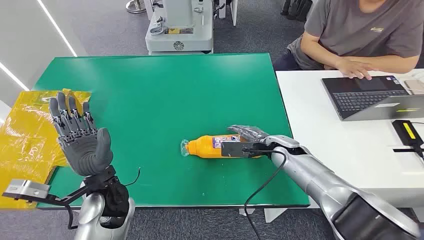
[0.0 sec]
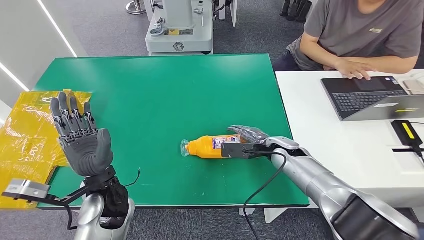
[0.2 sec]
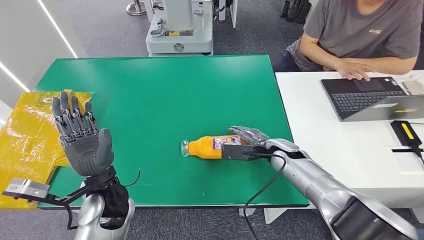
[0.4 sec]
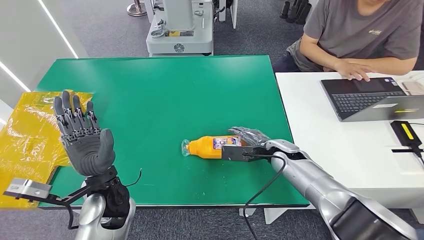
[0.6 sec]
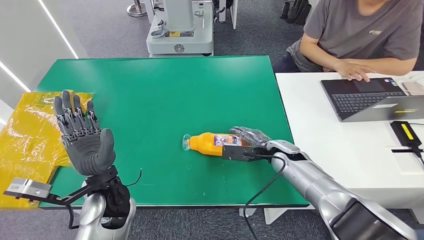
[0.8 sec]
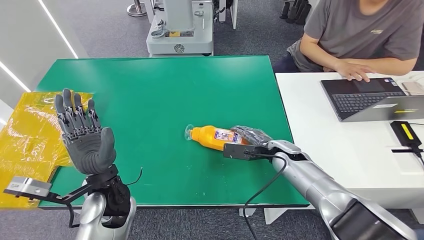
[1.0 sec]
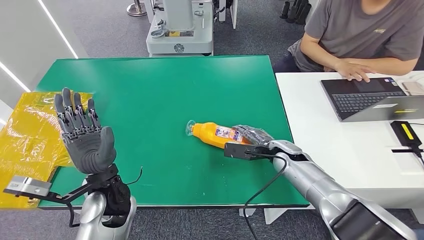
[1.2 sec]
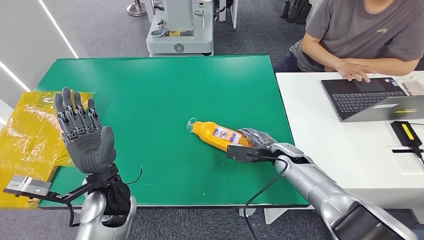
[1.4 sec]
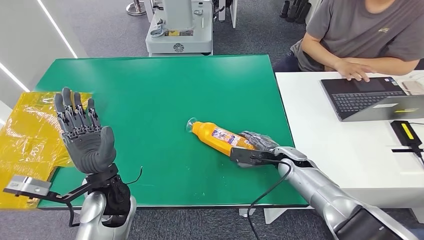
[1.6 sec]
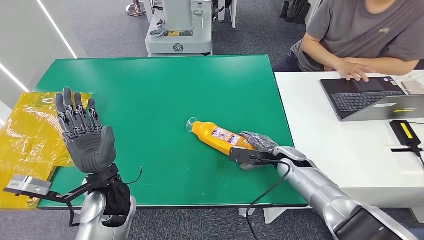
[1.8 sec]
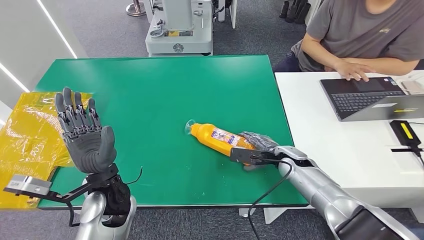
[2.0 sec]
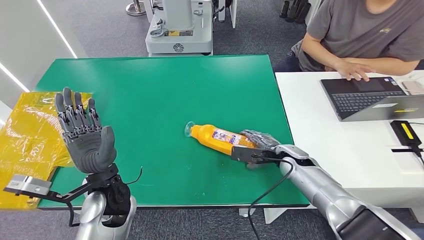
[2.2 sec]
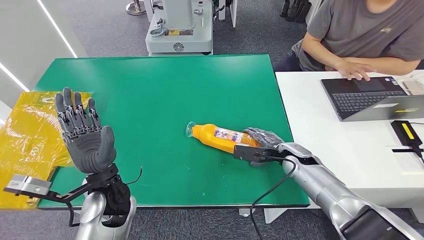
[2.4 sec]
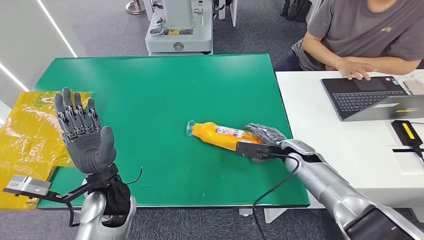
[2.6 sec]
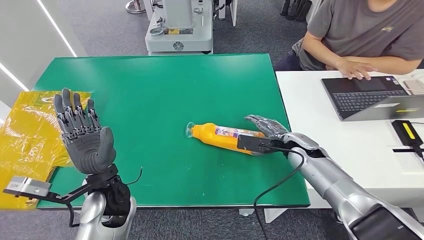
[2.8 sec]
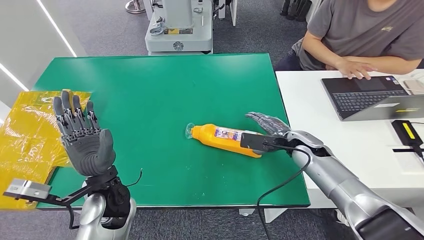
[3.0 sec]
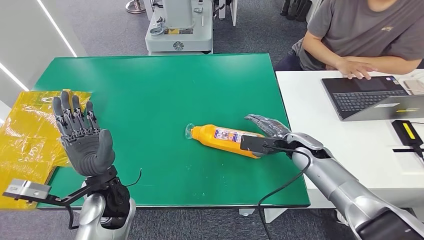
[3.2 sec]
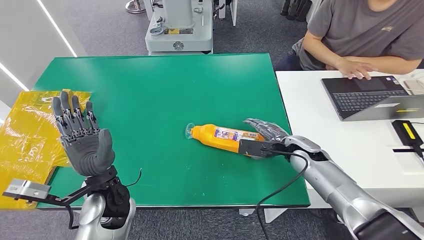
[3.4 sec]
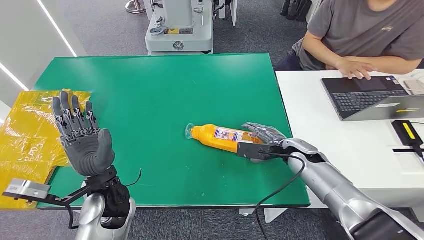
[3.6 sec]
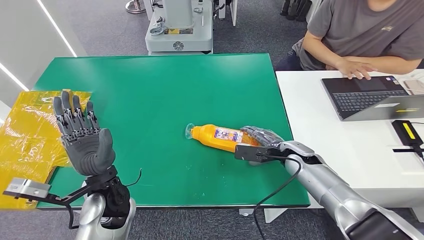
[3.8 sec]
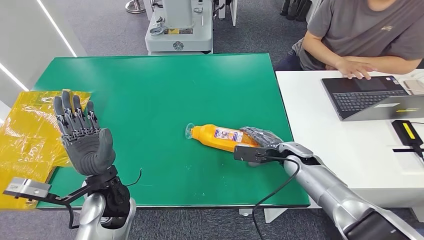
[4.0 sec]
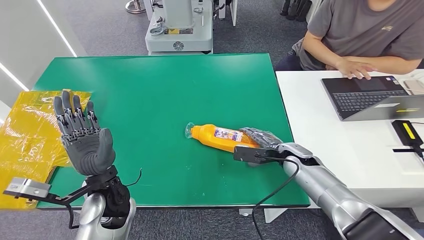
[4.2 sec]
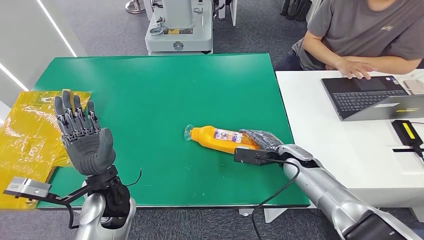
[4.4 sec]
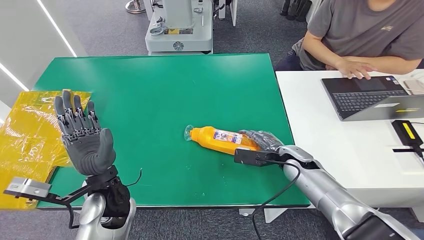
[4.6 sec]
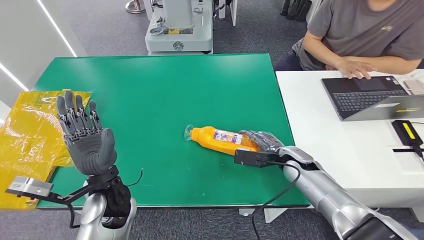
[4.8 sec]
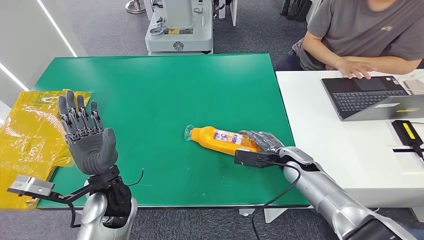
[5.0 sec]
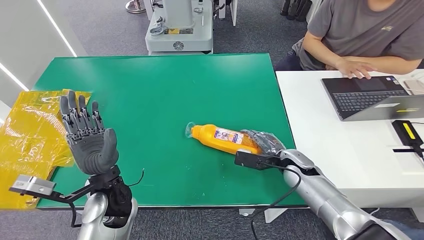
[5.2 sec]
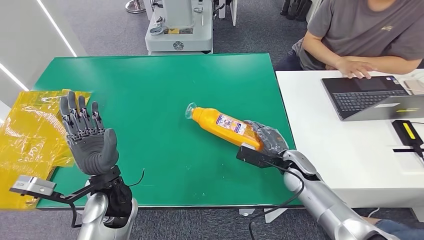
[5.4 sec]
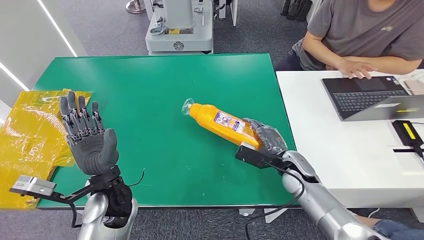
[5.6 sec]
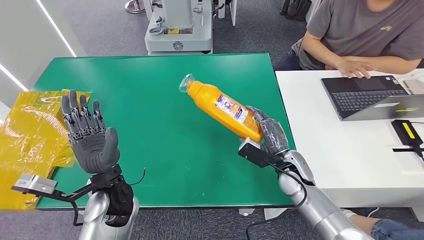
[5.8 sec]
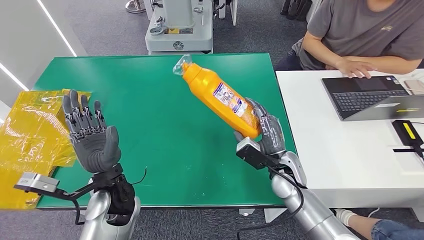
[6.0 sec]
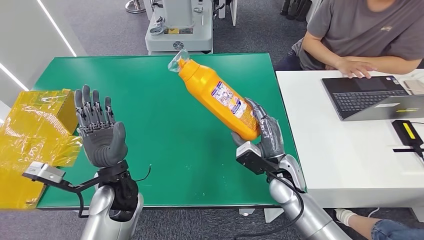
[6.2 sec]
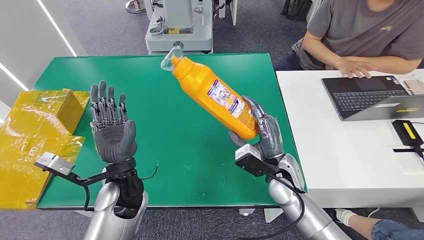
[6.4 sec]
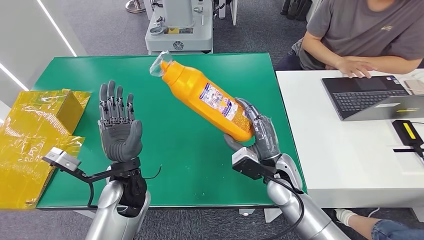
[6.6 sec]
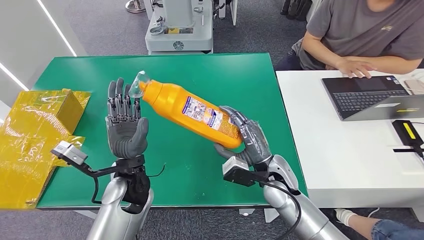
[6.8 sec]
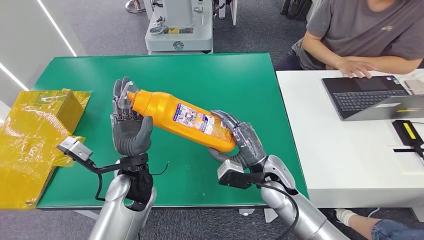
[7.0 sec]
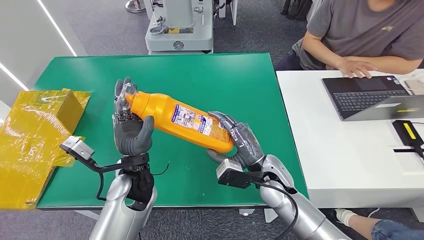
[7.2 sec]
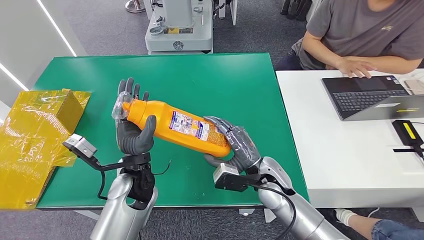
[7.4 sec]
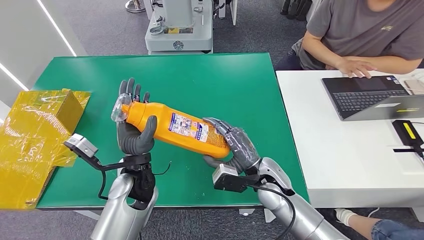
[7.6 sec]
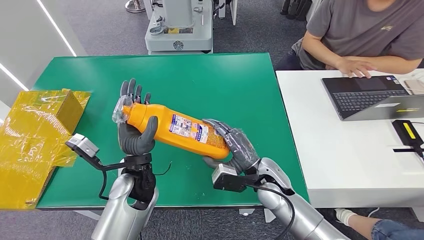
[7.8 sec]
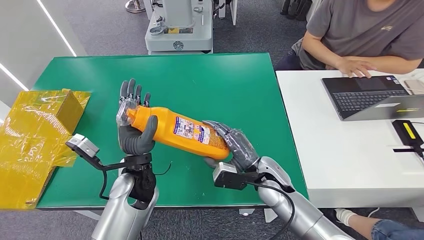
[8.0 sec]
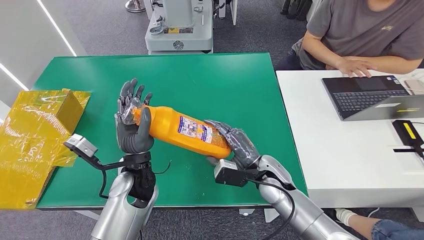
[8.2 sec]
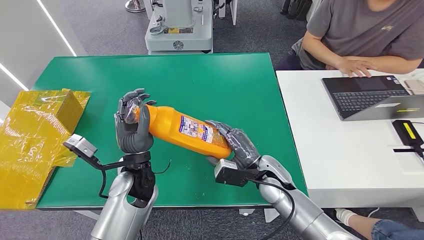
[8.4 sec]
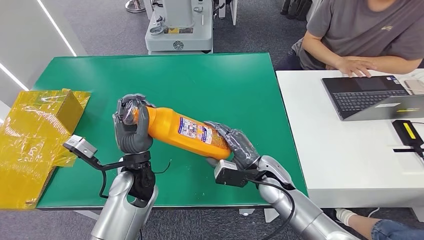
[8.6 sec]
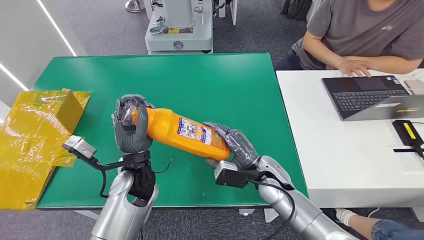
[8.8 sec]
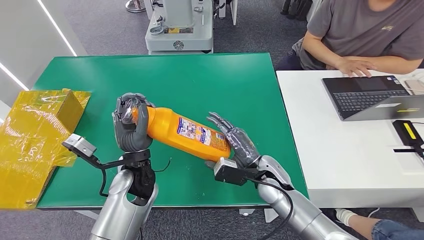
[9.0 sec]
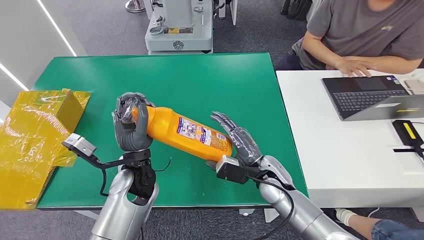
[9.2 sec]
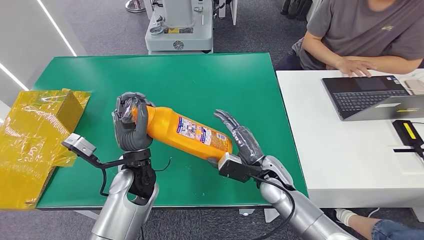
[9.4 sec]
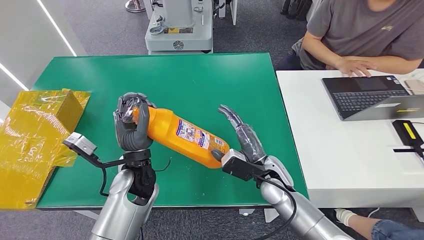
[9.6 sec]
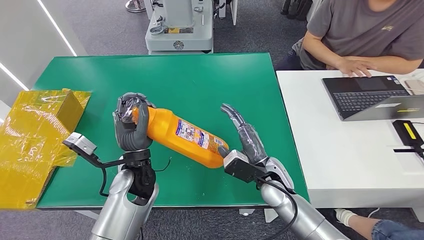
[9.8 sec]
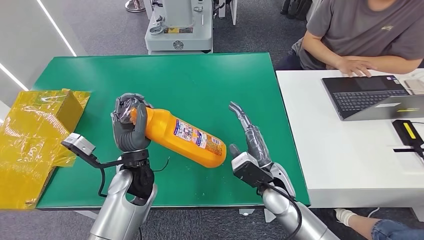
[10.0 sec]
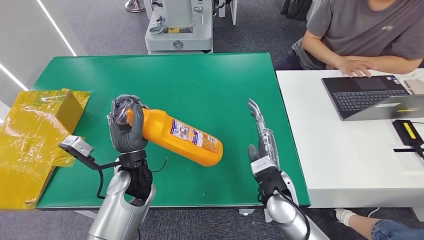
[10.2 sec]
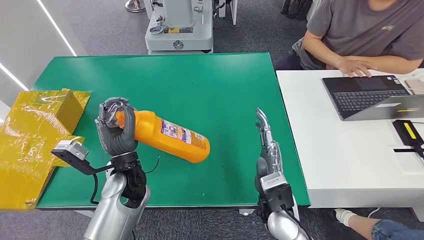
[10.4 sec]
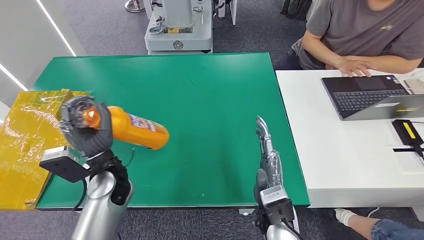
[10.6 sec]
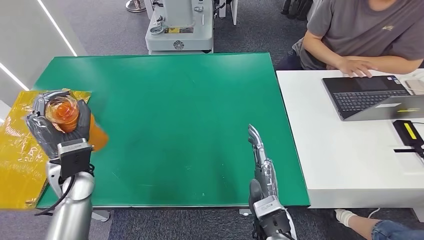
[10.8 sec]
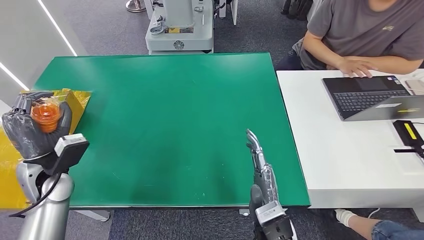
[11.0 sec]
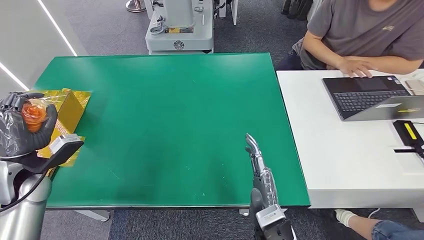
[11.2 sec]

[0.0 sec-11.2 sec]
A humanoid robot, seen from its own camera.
Step, 0.0 sec to 6.8 sec: Pick up the bottle from the table.
Step, 7.0 sec to 11.2 sec: Turn the bottle to the front side.
1.6 sec to 3.2 sec: The right hand is displaced upward by roughly 5 cm.
3.2 sec to 4.8 sec: The hands make only small movements.
4.8 sec to 6.4 sec: The right hand shifts approximately 10 cm to the left and backward.
8.0 sec to 9.6 sec: The hands stay close to where they were, moving slightly.
